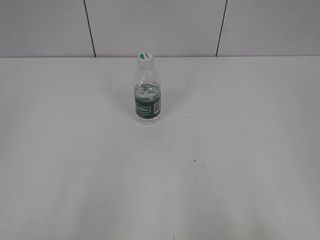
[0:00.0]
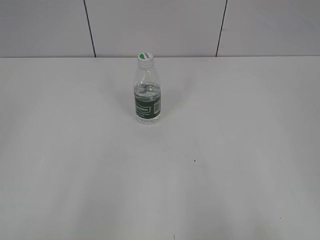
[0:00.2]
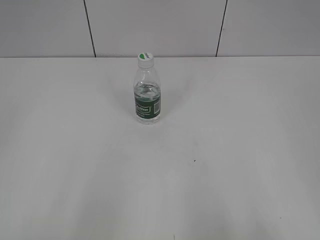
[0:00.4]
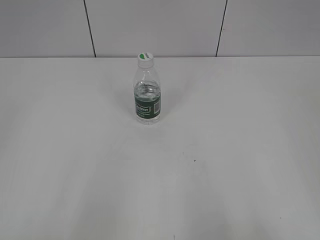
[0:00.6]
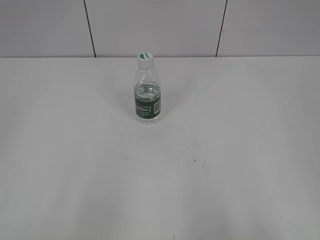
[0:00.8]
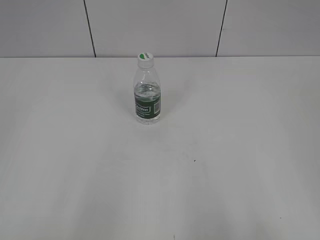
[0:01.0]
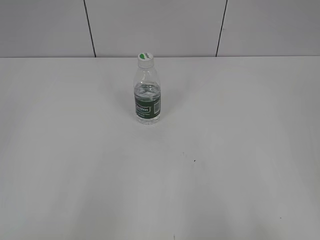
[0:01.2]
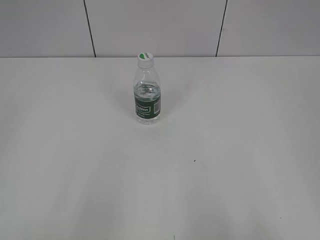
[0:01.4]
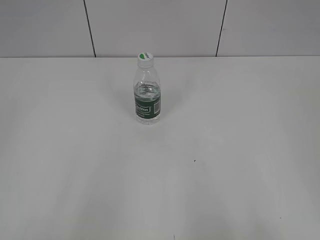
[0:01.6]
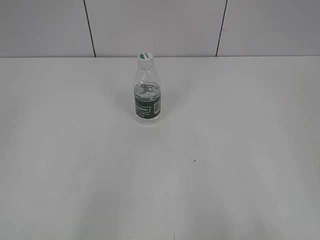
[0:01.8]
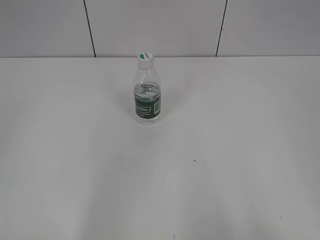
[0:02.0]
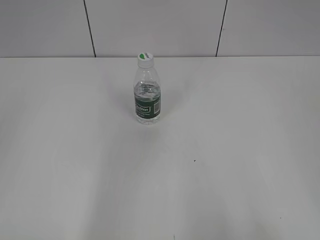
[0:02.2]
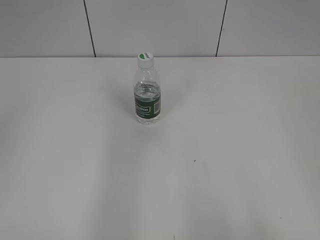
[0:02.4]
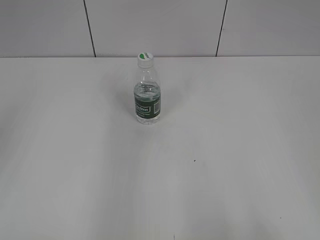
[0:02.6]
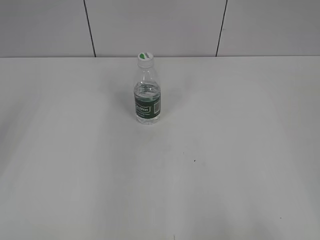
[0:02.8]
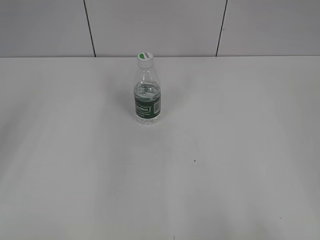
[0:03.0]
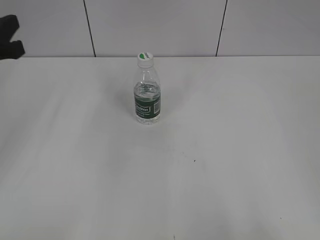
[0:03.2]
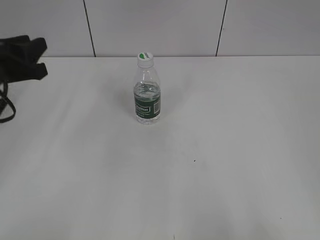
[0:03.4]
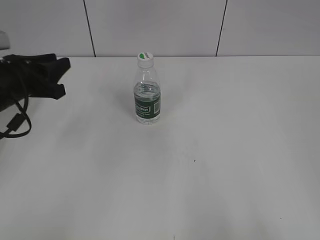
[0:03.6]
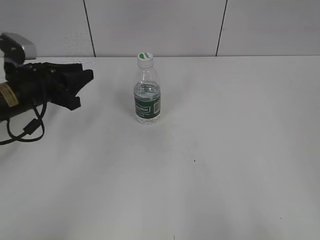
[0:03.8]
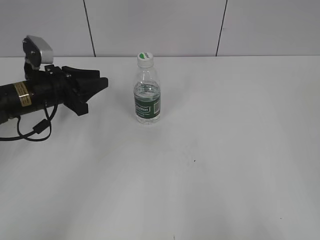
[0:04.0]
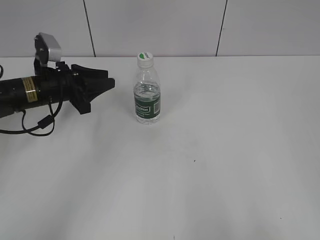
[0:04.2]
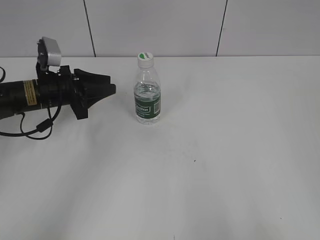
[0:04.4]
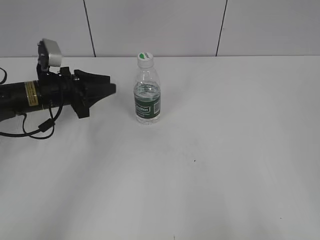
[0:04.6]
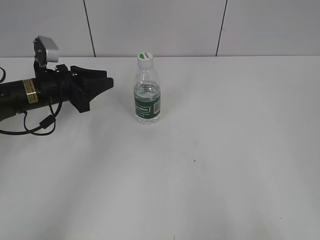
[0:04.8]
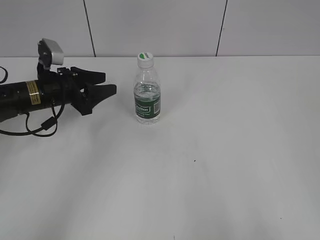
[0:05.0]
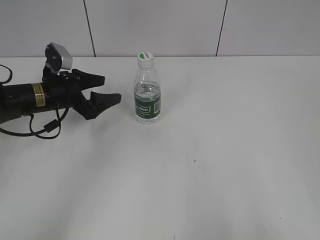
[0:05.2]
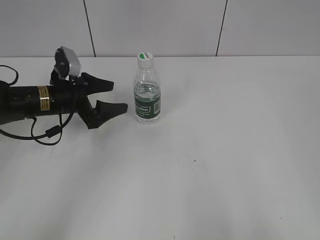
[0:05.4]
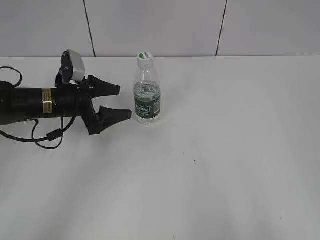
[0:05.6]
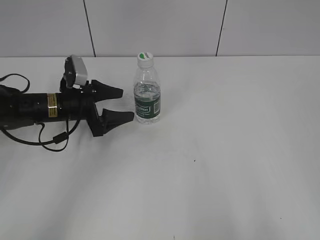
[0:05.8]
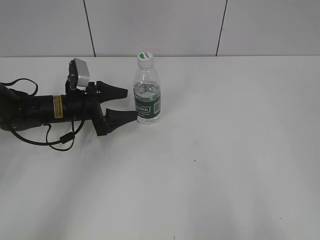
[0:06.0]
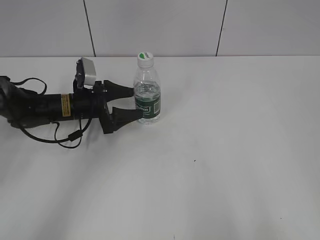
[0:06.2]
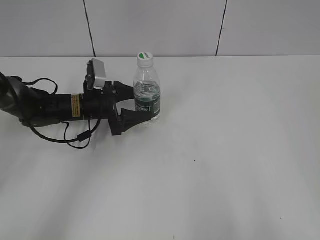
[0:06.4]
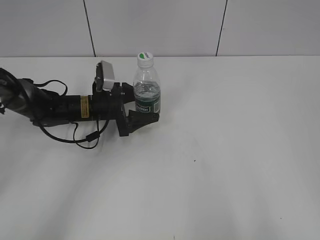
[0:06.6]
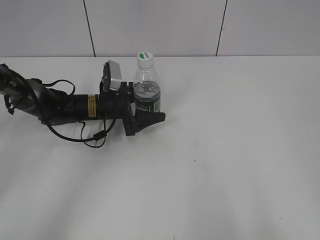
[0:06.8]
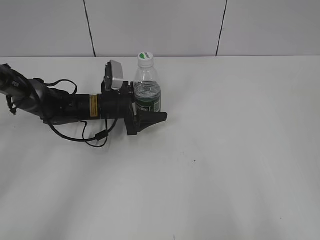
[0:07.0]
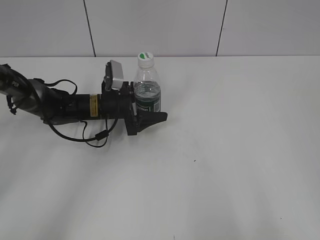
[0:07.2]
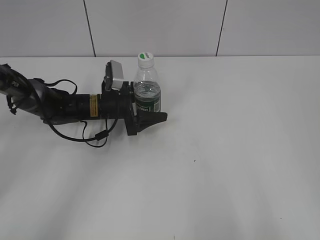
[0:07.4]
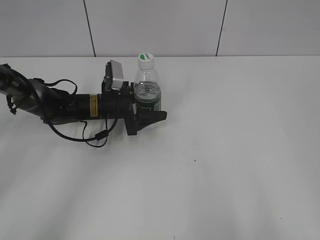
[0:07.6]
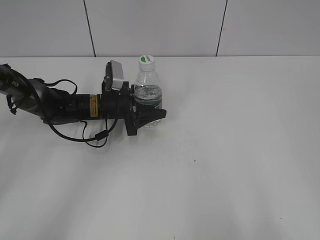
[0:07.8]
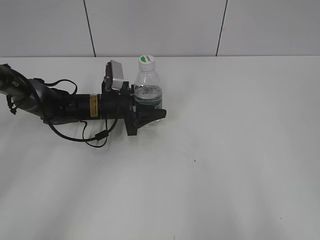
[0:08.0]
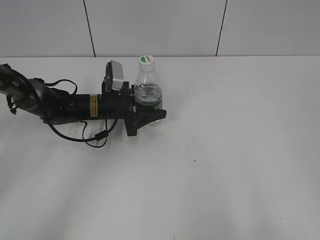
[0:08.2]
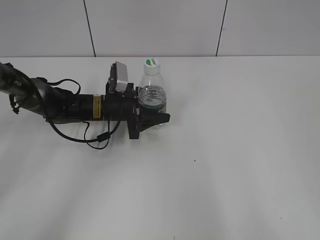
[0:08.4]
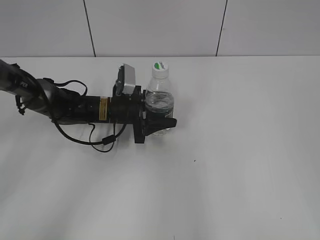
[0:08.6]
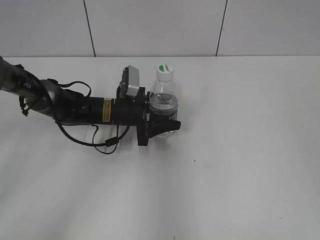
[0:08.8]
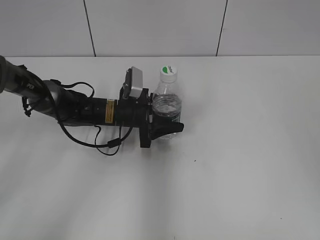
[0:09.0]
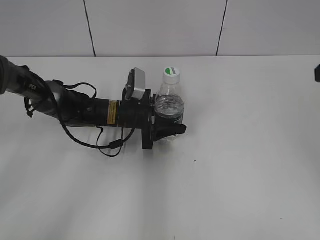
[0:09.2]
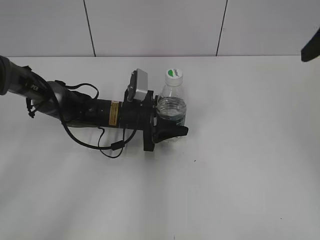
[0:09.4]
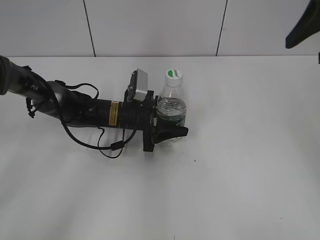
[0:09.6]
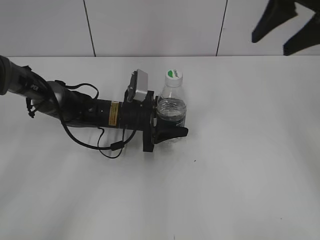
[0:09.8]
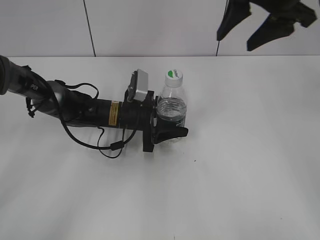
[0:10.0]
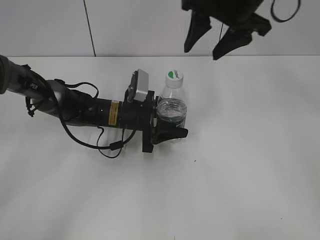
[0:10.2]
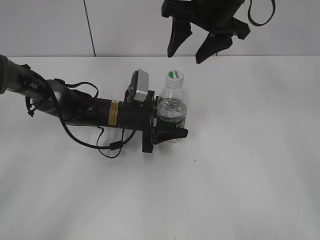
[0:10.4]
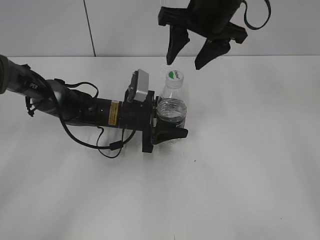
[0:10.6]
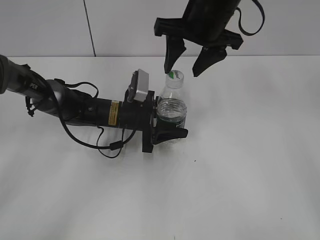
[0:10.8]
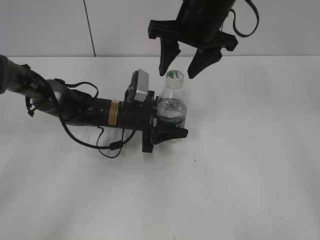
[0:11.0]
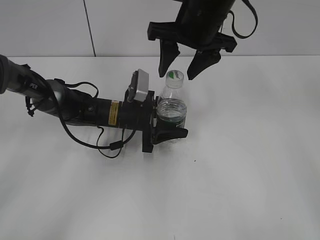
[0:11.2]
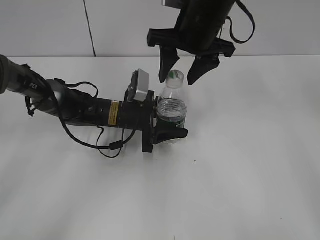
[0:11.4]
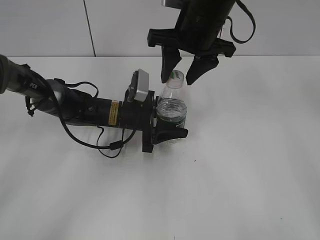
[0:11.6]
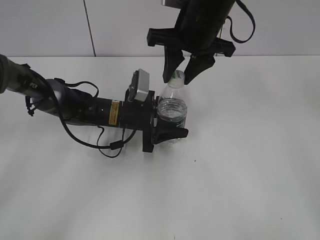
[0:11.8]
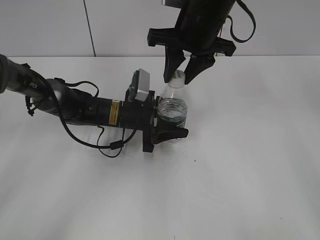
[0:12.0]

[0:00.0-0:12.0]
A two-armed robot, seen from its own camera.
Step, 0:00.0 to 0:07.8: Grasp the bottle and move it to the center of the table with the left gripper.
Step, 0:08.0 to 0:09.0: Lift the bottle and move it to the center of the table with the left gripper.
0:03.0 to 0:04.4: The left gripper heads downward, forward and to the right, covering about 20 cm.
0:04.4 to 0:06.0: The left gripper moves roughly 5 cm, and opens its fingers.
0:06.0 to 0:07.6: The left gripper goes roughly 5 cm to the right.
0:07.6 to 0:09.0: The left gripper closes up. The right gripper goes approximately 15 cm forward.
0:09.0 to 0:10.4: The right gripper goes approximately 30 cm forward and to the left.
0:10.4 to 0:12.0: The right gripper closes its fingers.

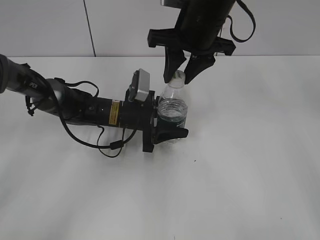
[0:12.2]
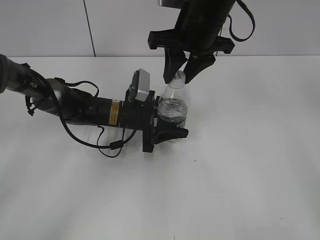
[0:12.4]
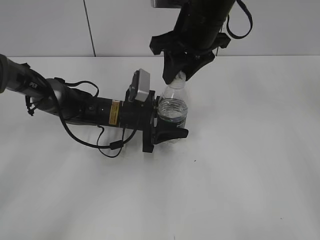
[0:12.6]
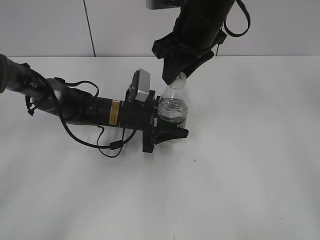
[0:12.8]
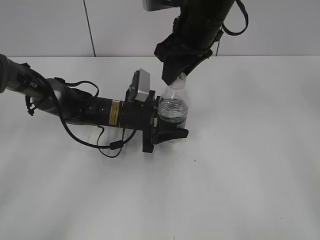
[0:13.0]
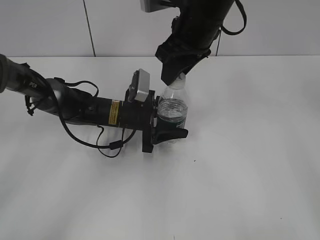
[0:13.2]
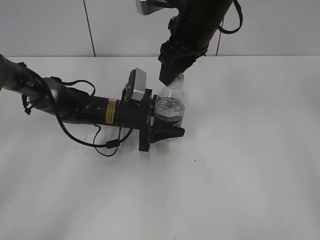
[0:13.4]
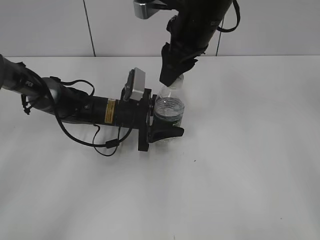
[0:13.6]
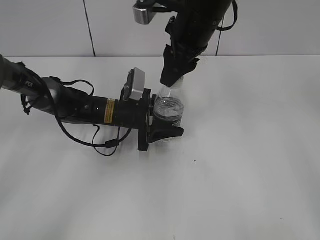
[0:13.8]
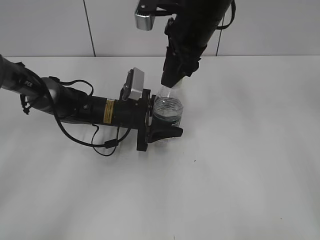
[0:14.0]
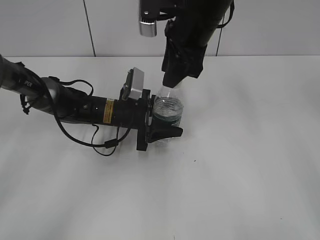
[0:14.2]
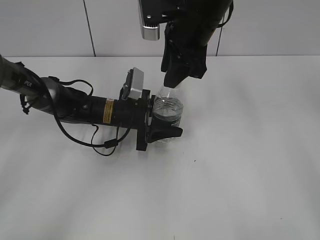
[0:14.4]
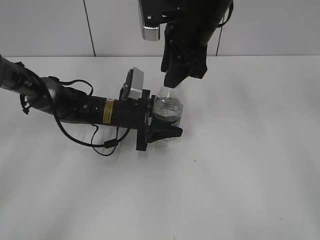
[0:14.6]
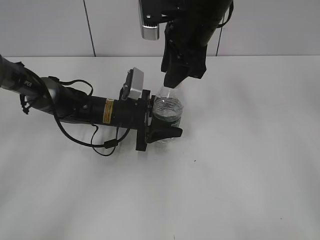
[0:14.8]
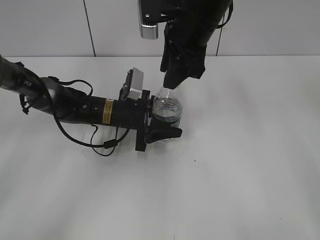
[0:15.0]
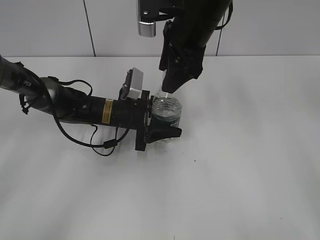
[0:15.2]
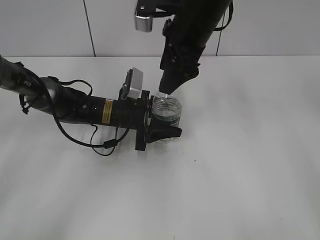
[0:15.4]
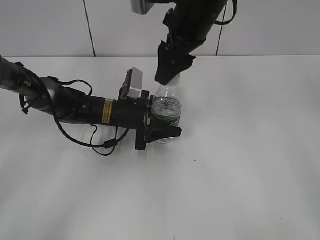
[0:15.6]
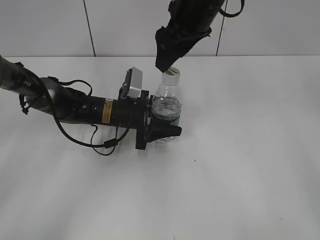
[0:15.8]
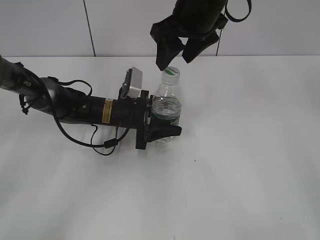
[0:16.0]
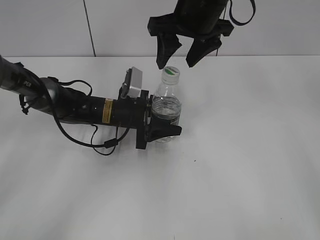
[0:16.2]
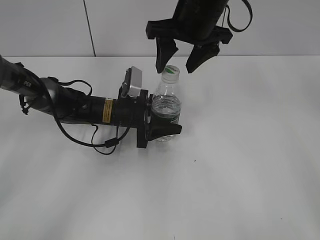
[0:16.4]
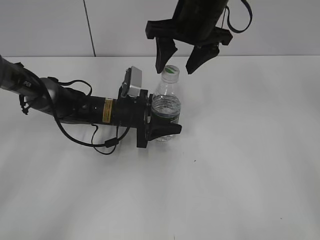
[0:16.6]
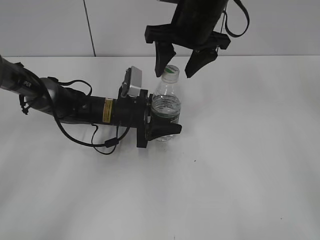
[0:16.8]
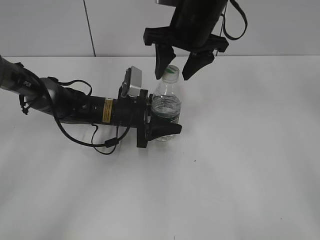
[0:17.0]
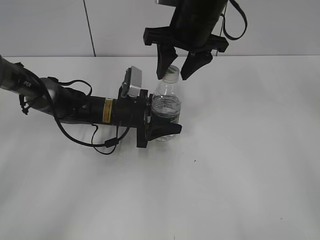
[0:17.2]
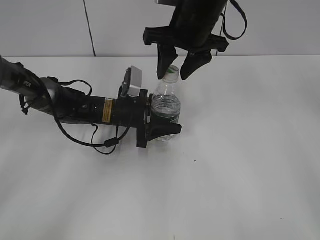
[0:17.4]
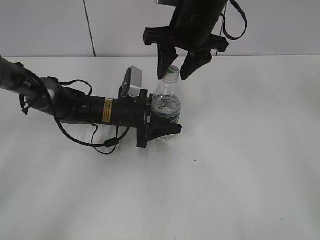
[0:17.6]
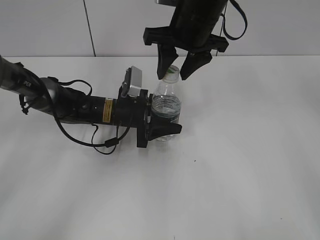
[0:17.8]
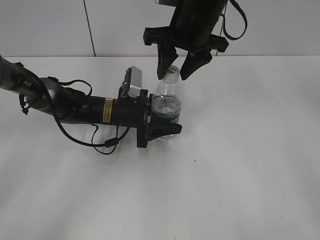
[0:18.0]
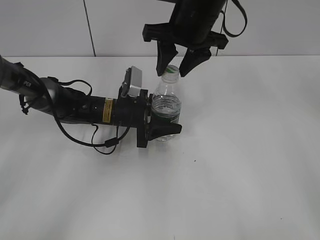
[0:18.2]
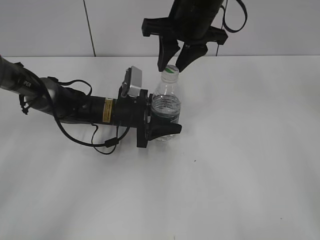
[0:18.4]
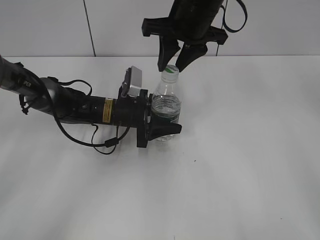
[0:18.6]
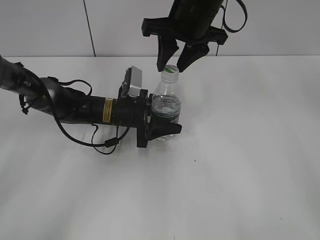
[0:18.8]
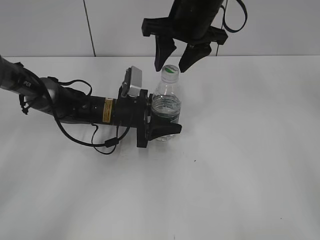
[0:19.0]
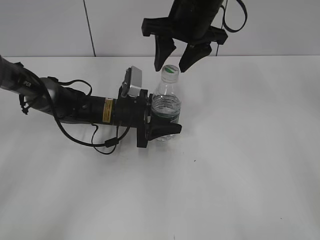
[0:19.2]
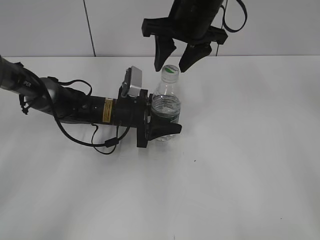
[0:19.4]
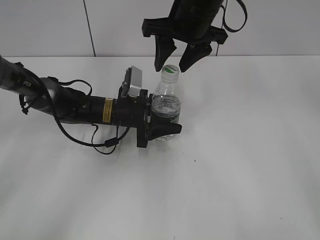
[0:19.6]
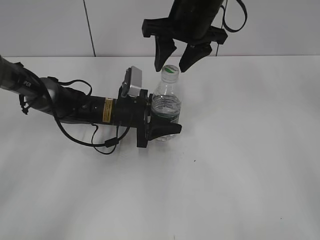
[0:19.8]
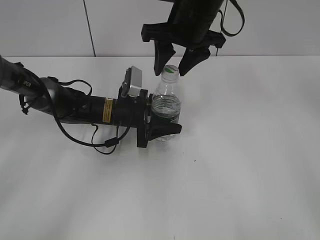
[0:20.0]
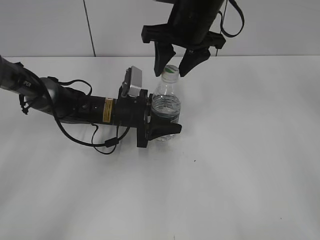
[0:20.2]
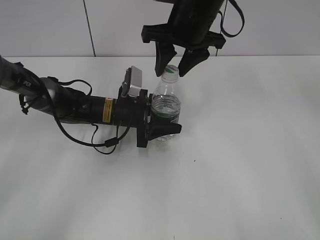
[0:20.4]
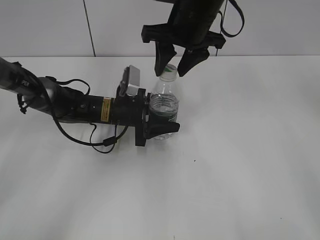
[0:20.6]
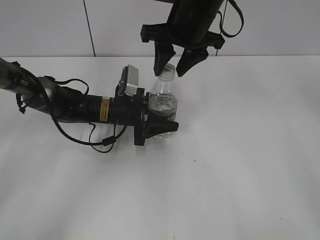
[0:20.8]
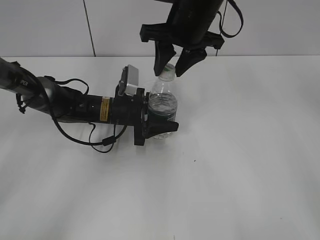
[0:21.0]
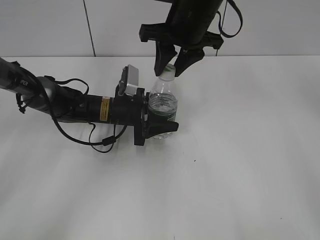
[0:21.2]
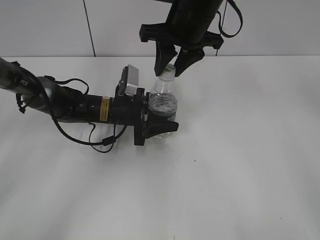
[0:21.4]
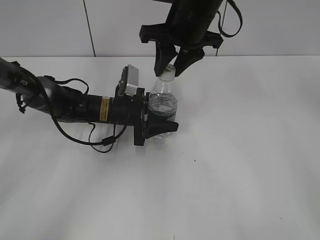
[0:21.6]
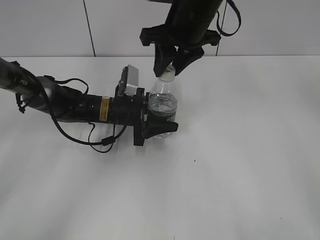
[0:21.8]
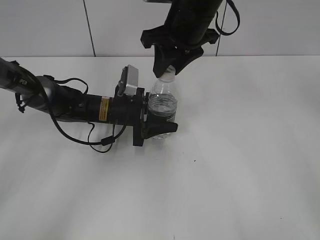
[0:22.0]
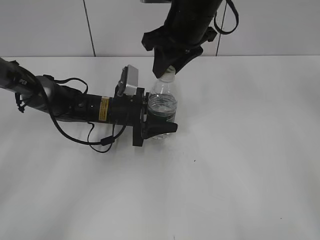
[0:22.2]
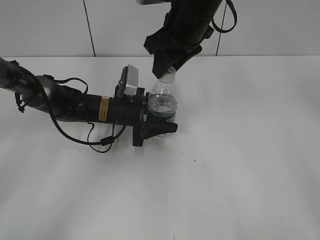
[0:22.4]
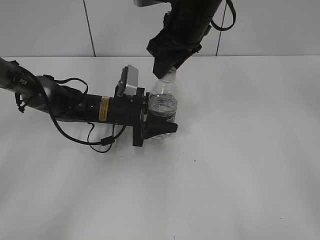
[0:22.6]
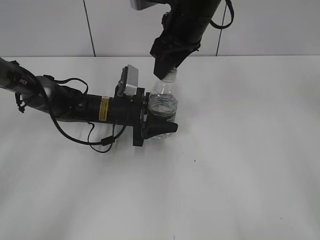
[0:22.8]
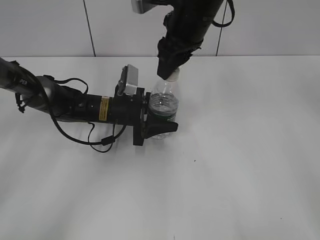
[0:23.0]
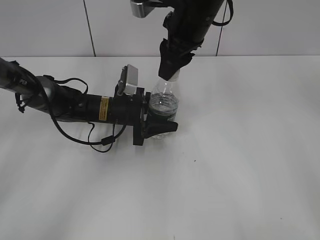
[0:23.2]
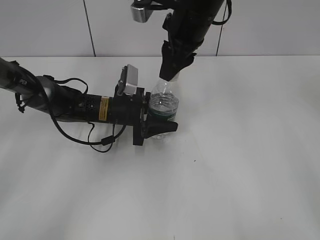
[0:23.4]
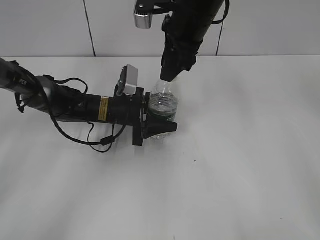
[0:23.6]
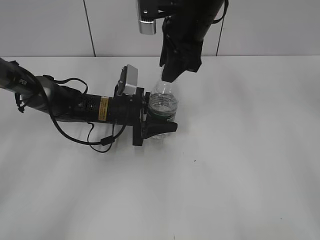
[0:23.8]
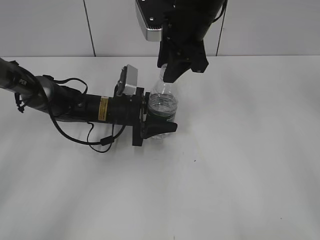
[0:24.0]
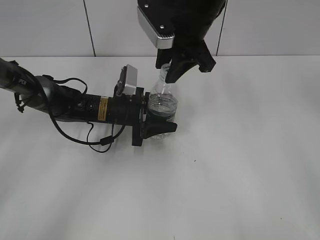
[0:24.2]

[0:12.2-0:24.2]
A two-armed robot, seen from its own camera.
0:13.8 to 0:15.2: The right gripper opens its fingers.
0:16.6 to 0:18.2: The right gripper closes up.
0:18.2 to 0:19.8: The right gripper closes and opens again.
0:19.8 to 0:21.2: The right gripper closes up.
